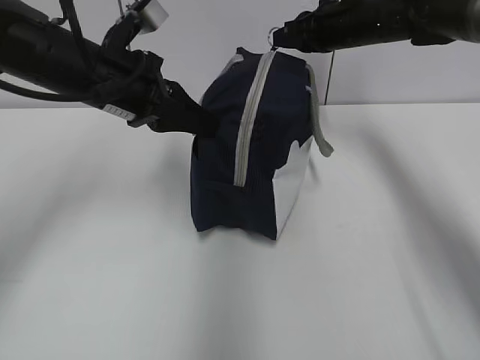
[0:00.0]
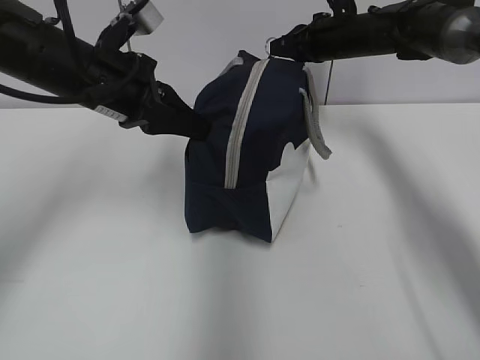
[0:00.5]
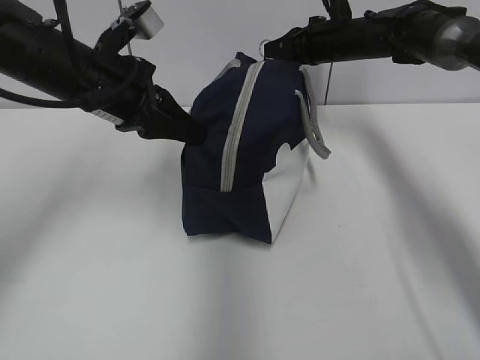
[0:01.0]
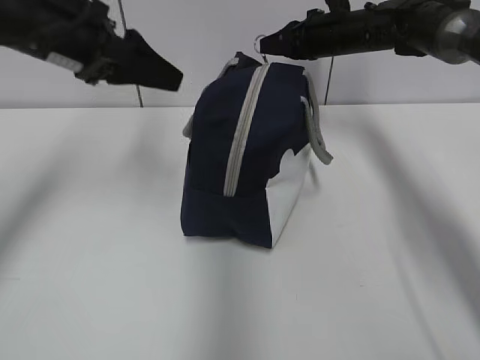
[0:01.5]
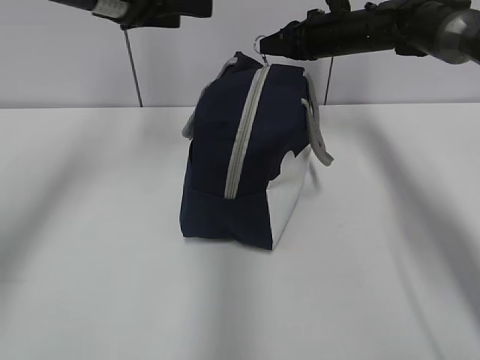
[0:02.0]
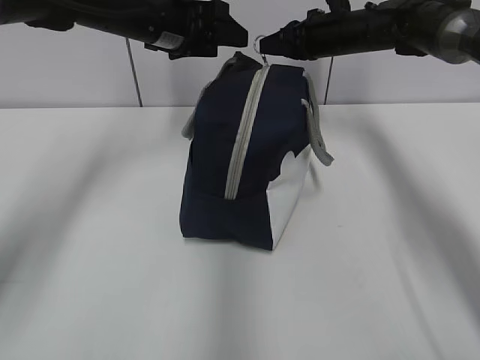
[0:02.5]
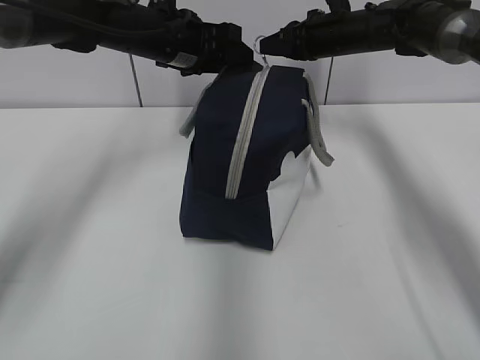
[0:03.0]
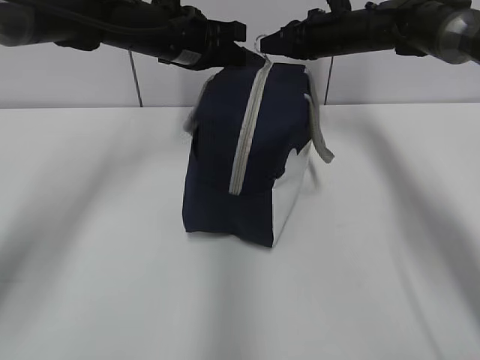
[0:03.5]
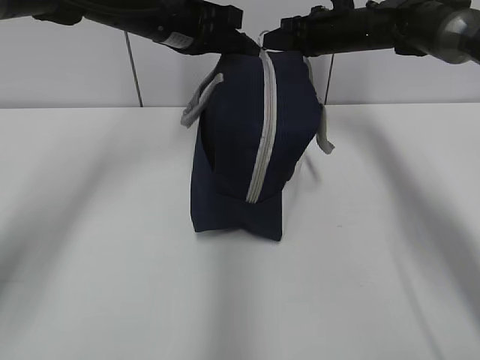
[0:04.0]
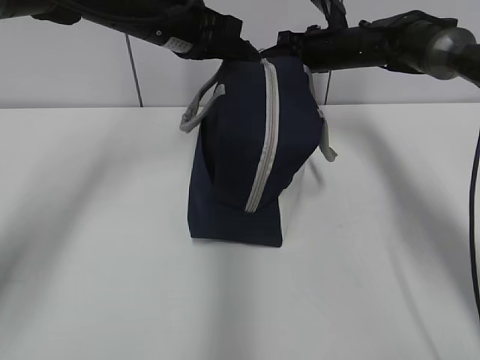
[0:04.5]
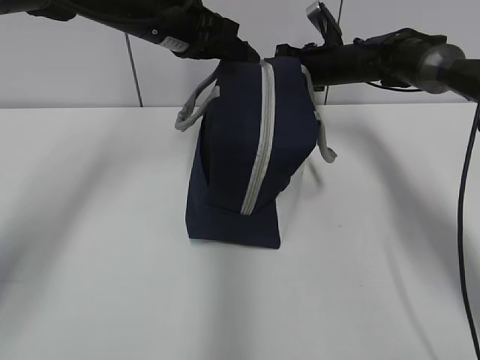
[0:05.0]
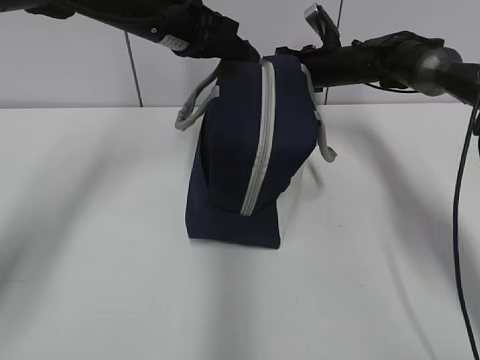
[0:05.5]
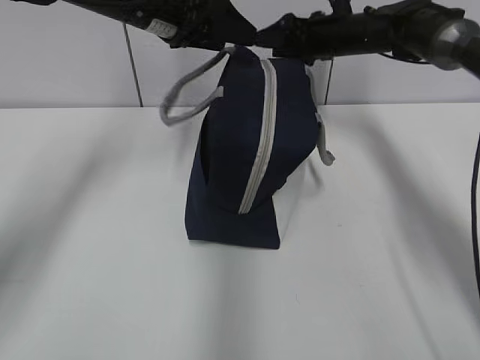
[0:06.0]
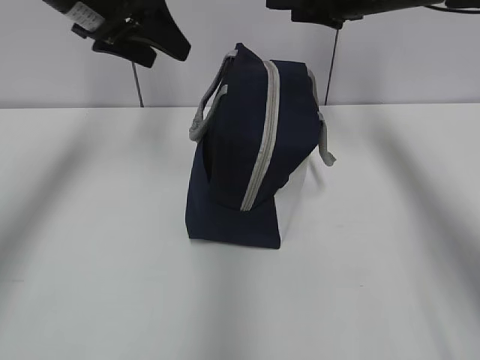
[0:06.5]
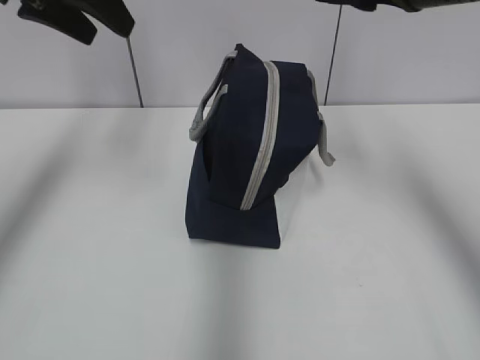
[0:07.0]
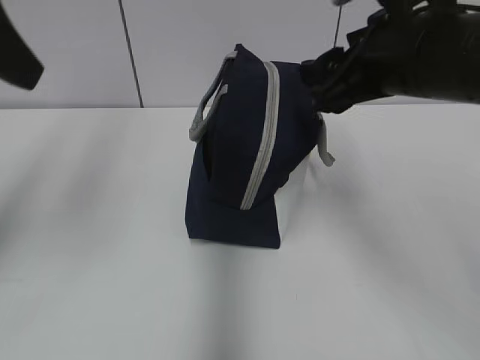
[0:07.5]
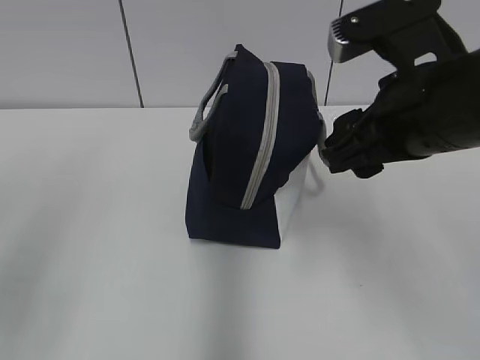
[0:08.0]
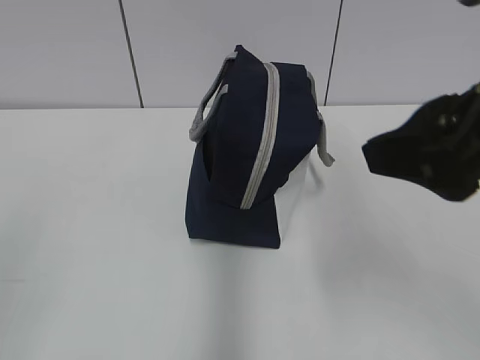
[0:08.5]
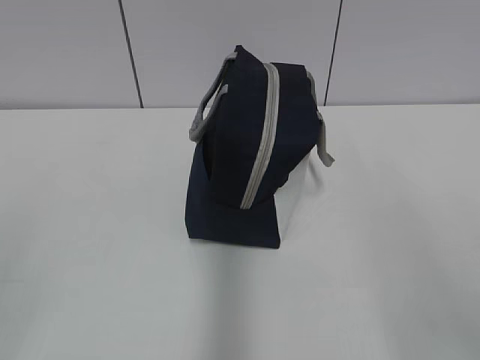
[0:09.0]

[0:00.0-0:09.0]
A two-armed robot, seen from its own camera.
Step, 0:00.0 to 0:05.5: Pull the zipper with your right hand.
0:00.0 to 0:02.0: The left gripper is displaced upward and forward by about 10 cm, and opens up.
0:02.0 to 0:04.5: The left gripper moves to the right, some 5 cm, and closes up.
0:04.5 to 0:07.0: The left gripper goes roughly 15 cm to the left, upward and backward, and opens up; the right gripper travels backward and upward by roughly 25 cm, and opens up.
0:07.0 to 0:09.0: Both grippers move backward, about 30 cm.

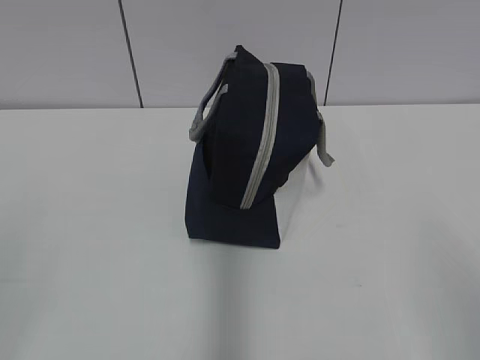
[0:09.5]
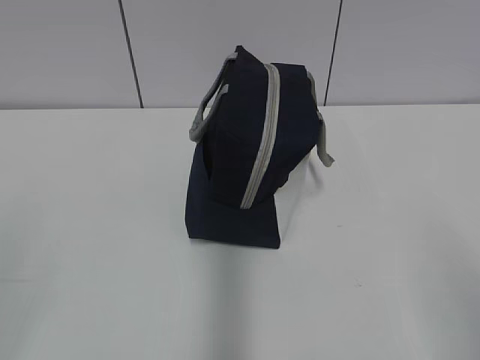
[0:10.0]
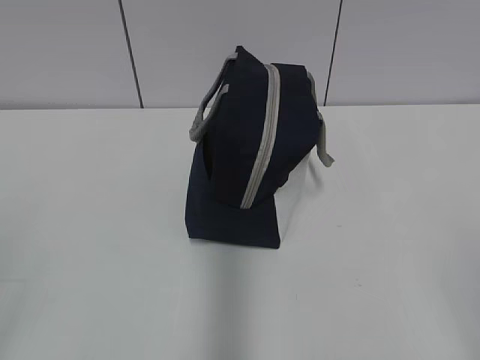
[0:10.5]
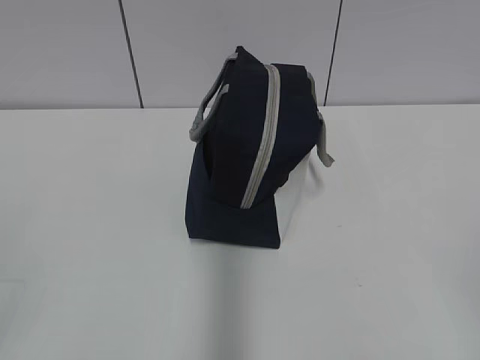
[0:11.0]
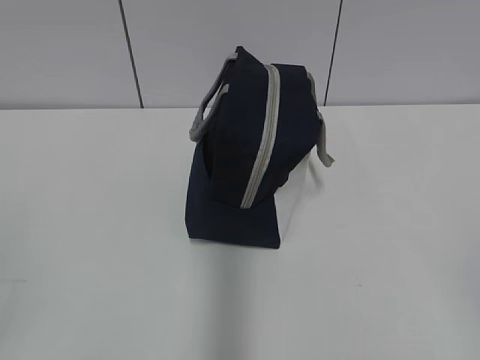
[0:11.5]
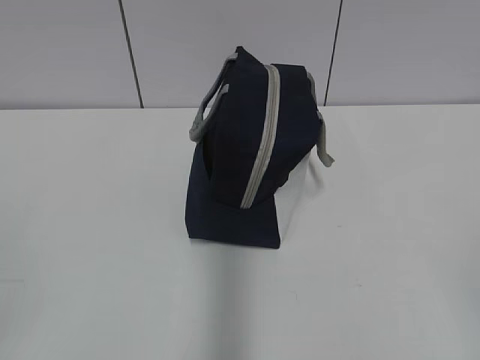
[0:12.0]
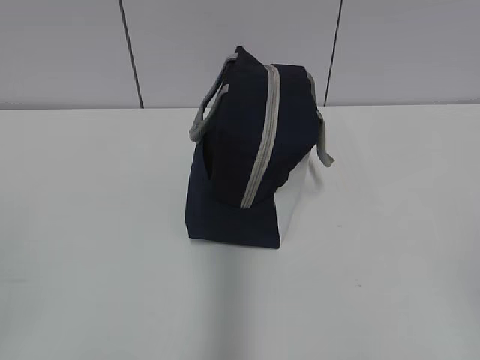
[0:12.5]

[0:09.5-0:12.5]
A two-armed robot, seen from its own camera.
0:11.0 to 0:12.5: The two grippers keep their place.
